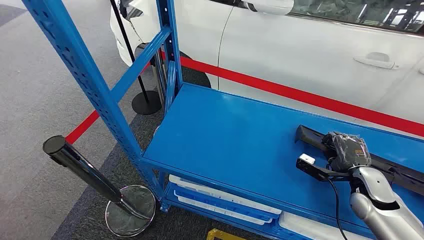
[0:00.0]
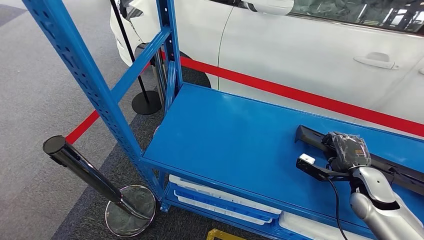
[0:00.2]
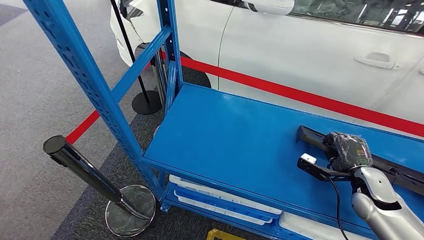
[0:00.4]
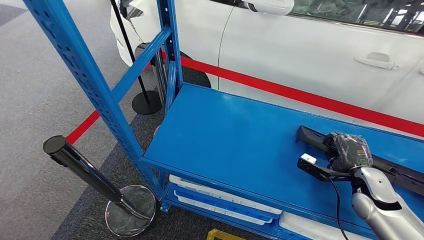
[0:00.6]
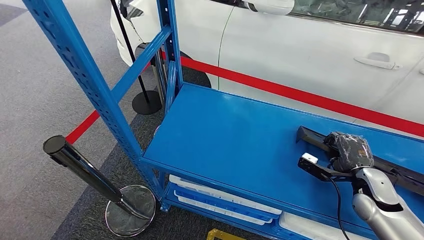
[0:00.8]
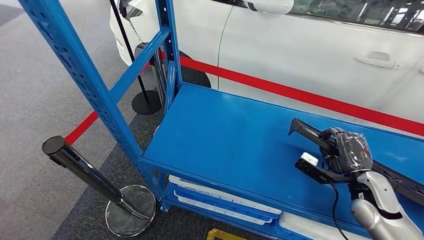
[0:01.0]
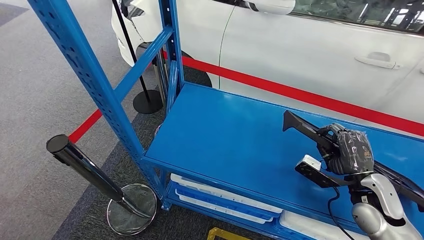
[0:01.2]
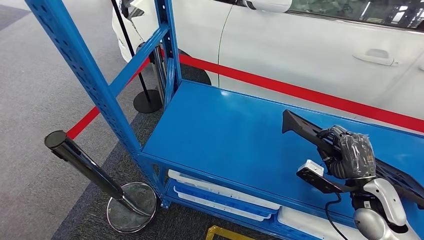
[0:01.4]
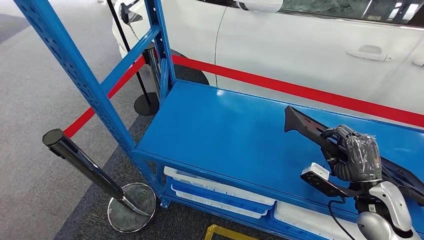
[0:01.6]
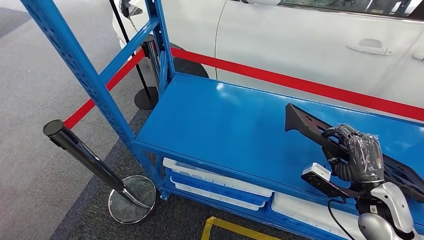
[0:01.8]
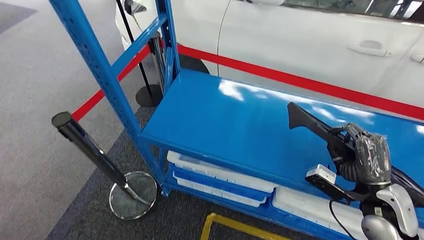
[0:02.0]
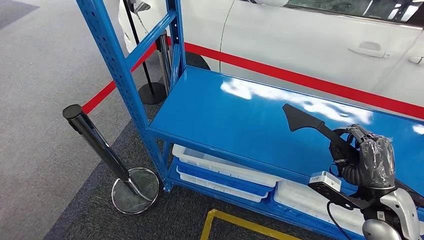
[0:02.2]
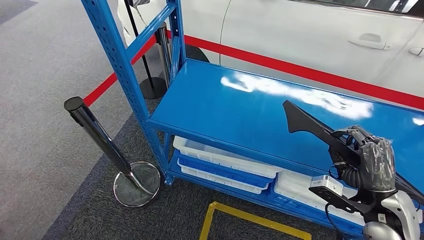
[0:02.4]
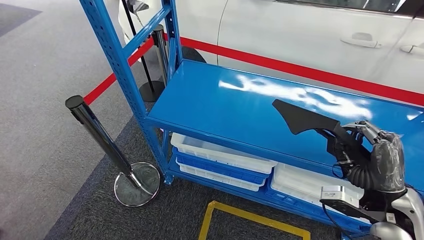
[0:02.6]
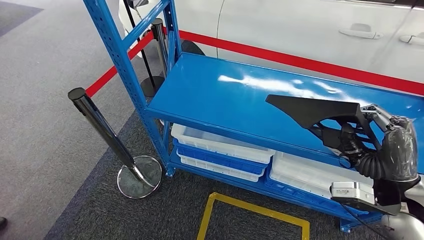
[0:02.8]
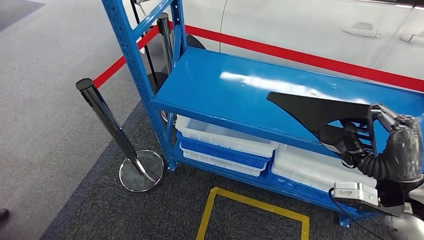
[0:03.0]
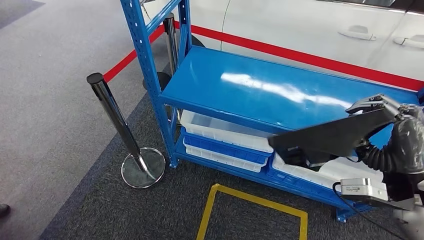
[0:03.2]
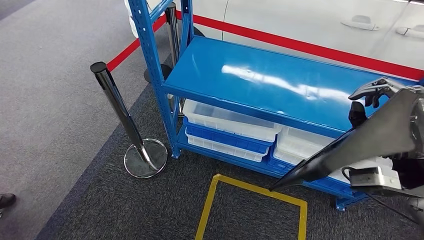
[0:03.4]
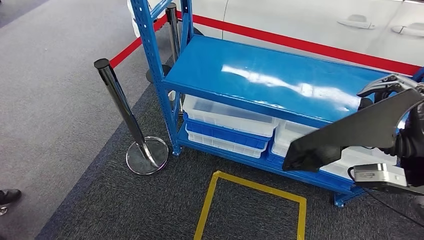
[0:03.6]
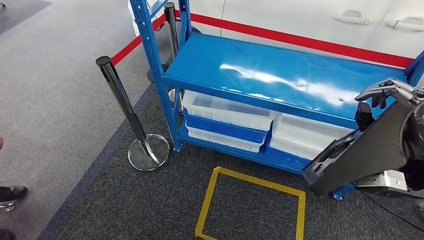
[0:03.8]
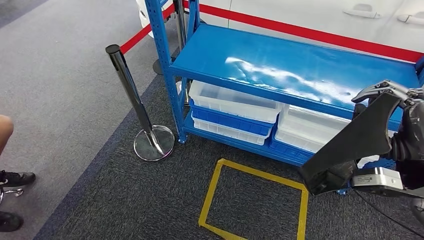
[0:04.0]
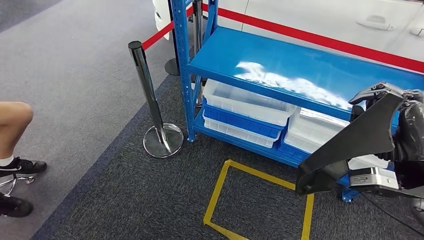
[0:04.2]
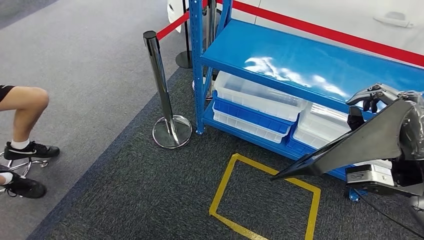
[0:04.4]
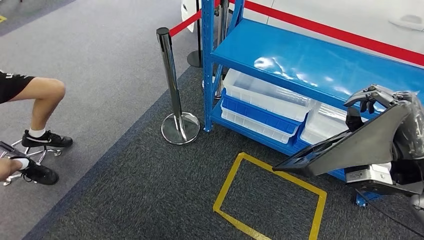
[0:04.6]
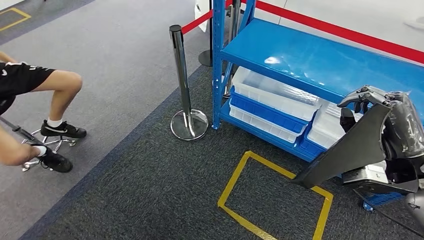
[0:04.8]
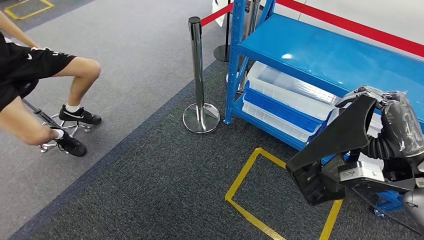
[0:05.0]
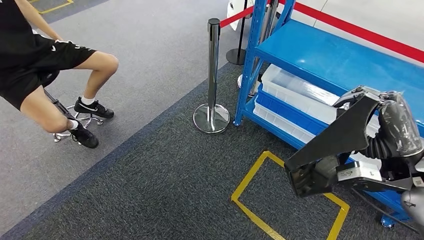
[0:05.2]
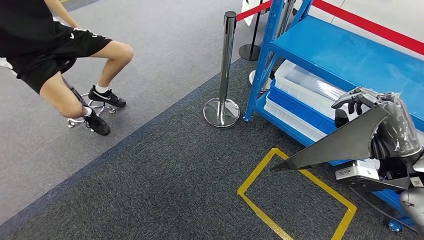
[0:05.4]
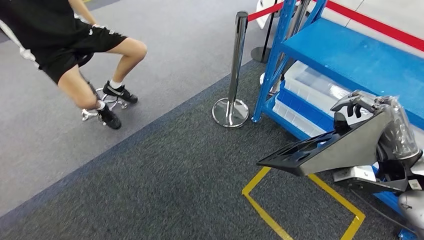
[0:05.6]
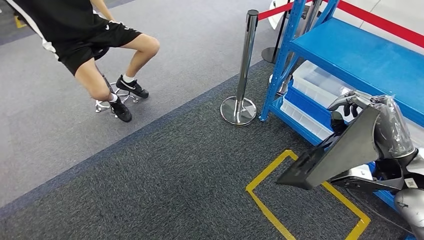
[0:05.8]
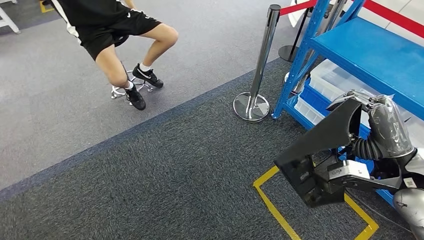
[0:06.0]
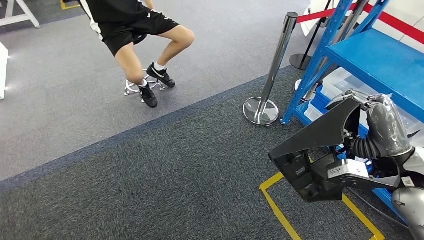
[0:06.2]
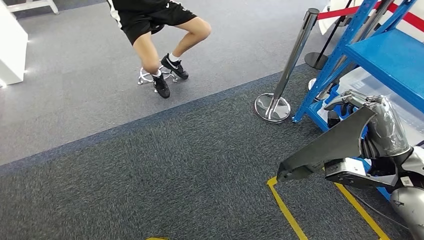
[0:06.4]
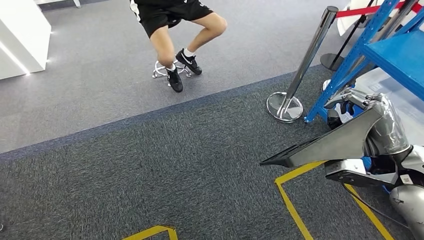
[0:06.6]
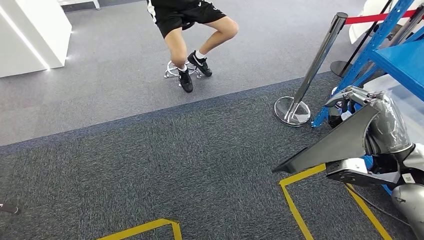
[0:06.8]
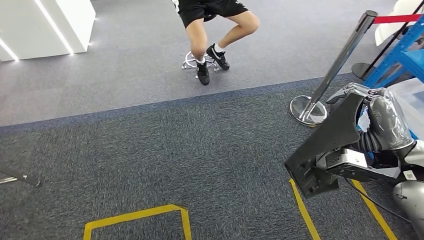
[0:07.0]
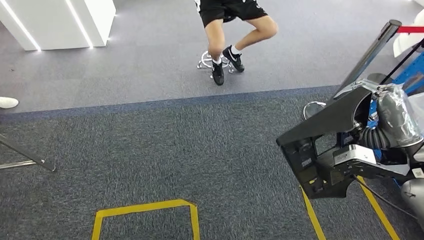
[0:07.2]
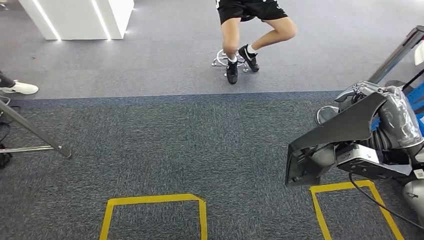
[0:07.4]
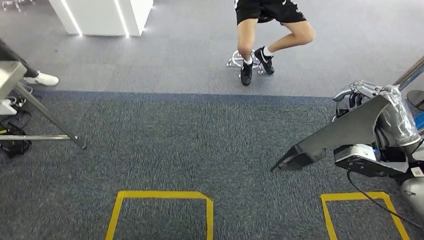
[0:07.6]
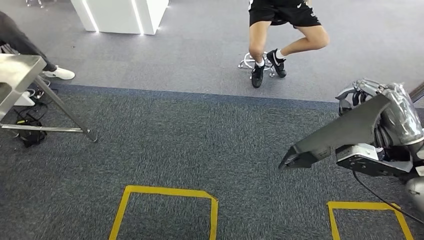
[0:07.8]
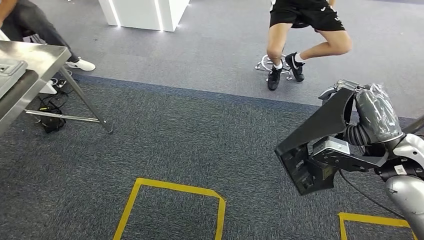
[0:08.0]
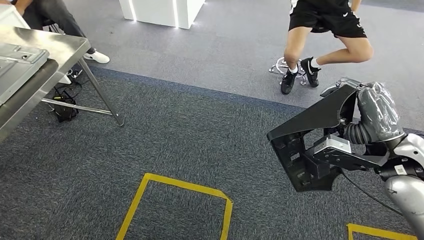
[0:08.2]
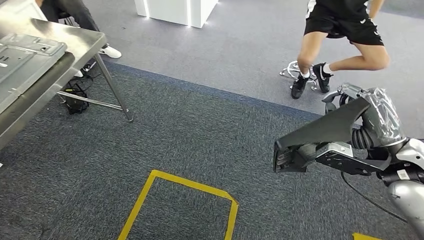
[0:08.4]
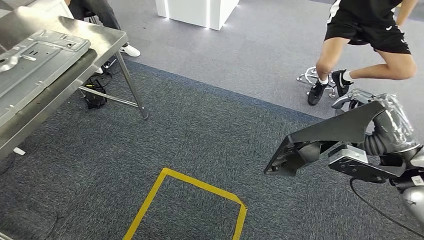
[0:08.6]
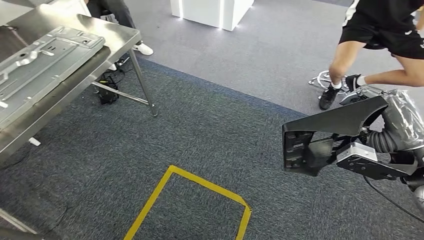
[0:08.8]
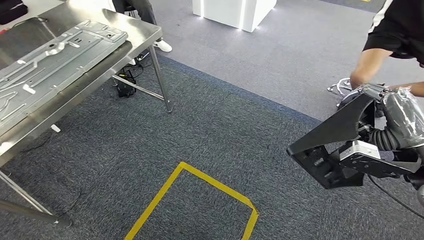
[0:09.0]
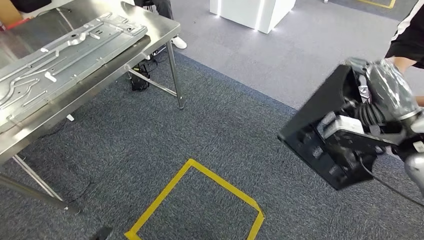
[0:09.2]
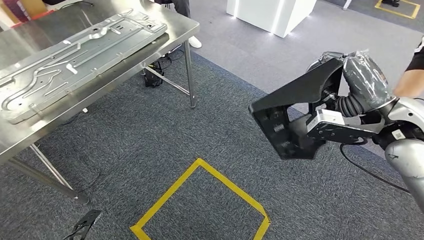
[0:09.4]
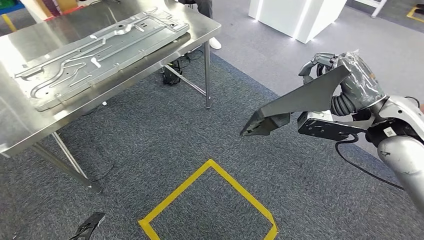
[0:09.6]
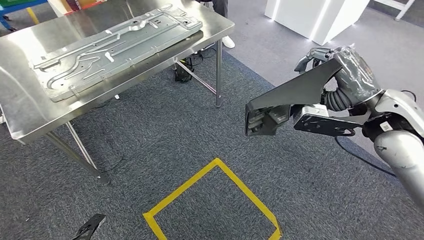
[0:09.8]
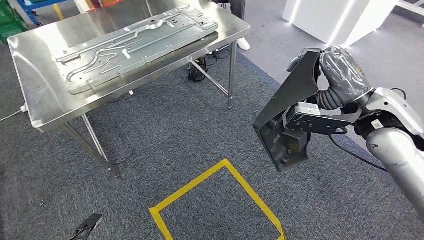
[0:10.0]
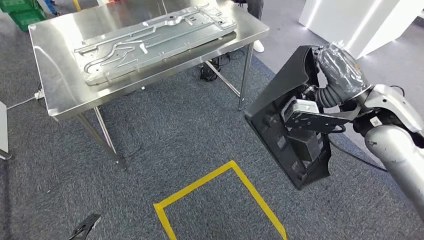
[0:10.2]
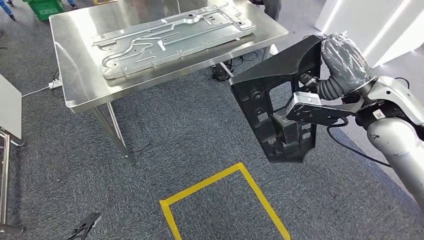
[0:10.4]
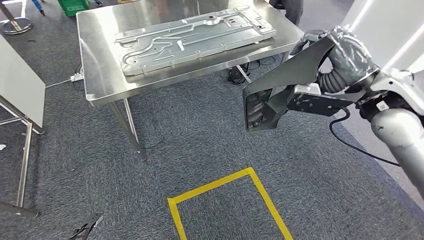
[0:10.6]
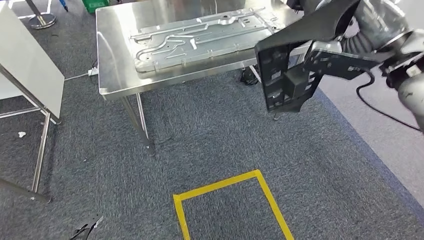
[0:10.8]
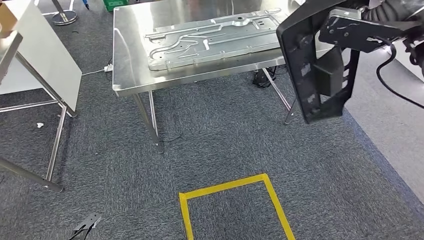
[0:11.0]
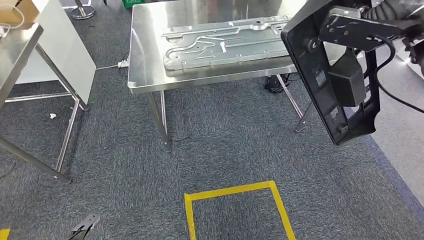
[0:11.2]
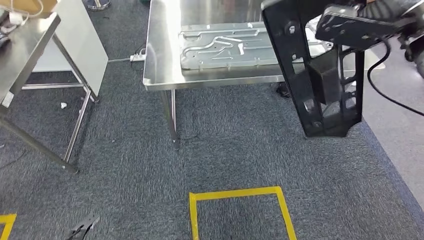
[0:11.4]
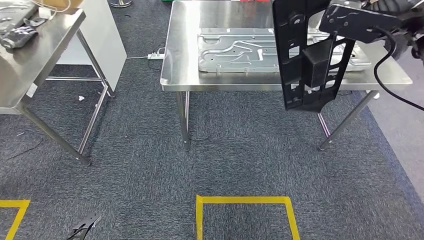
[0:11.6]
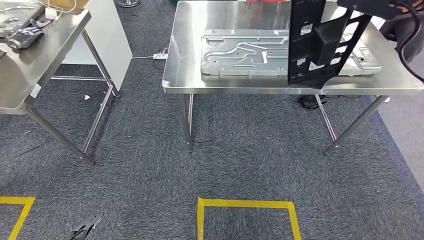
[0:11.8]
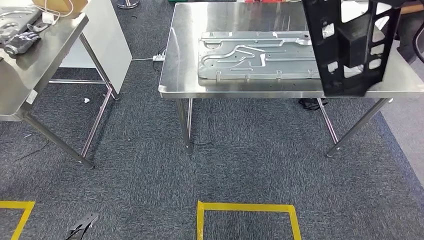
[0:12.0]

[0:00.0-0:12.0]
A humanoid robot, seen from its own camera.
Step, 0:00.0 to 0:03.0: Pick up the large material from the shelf.

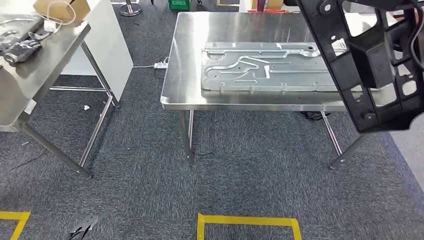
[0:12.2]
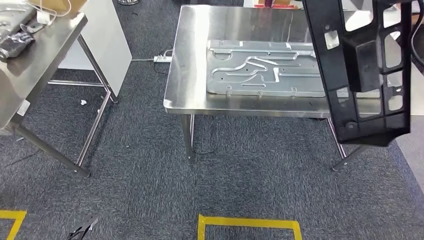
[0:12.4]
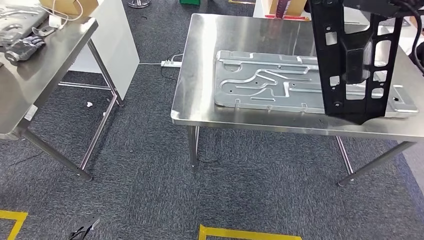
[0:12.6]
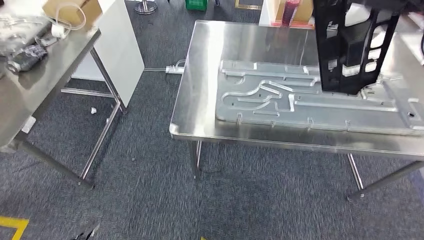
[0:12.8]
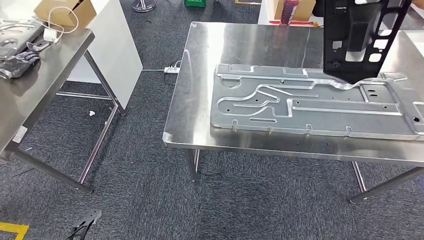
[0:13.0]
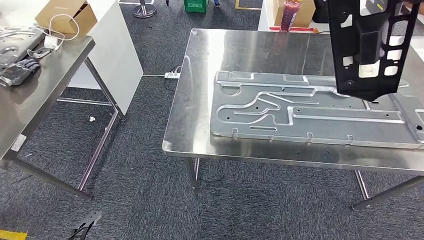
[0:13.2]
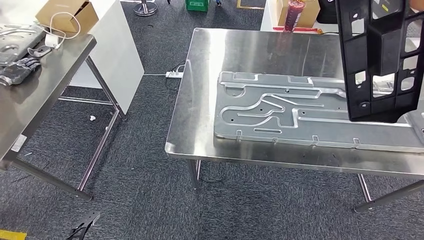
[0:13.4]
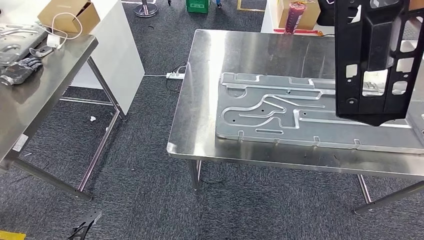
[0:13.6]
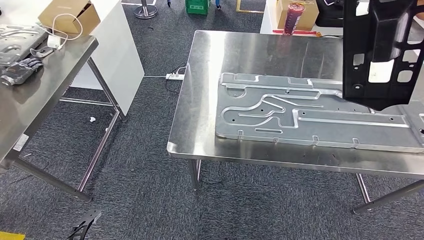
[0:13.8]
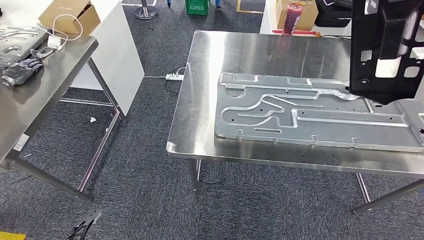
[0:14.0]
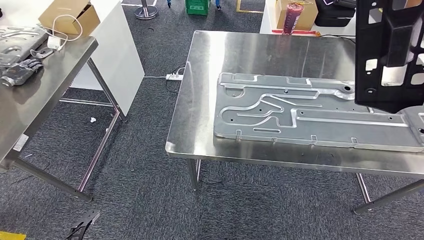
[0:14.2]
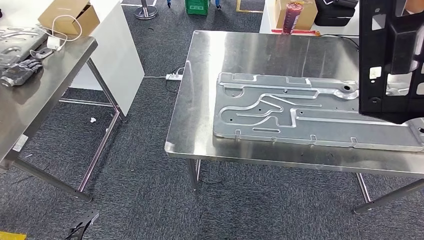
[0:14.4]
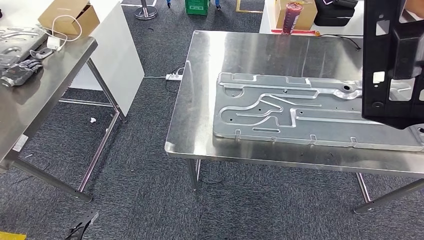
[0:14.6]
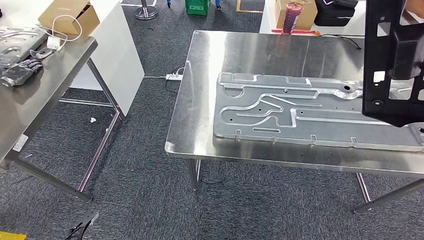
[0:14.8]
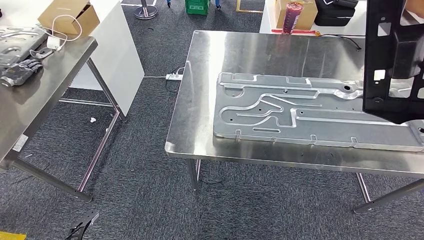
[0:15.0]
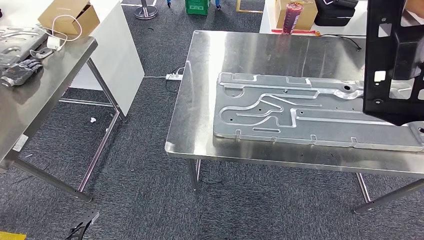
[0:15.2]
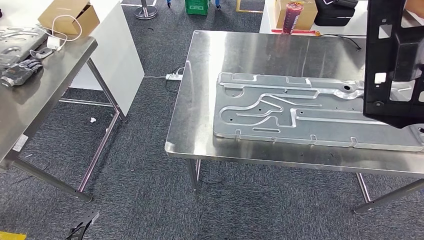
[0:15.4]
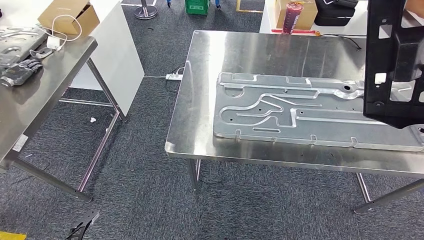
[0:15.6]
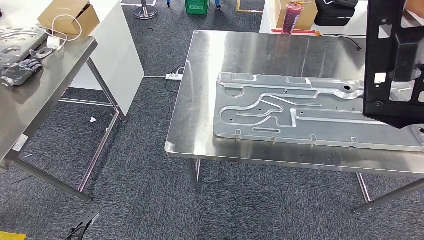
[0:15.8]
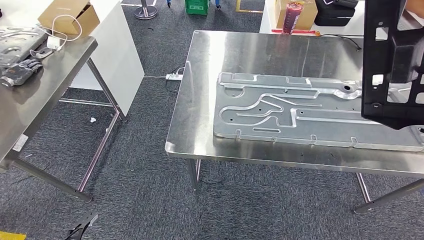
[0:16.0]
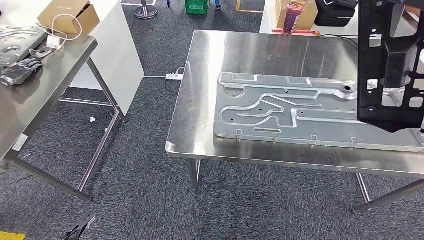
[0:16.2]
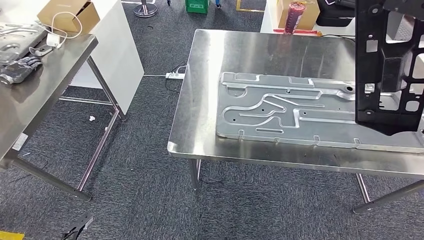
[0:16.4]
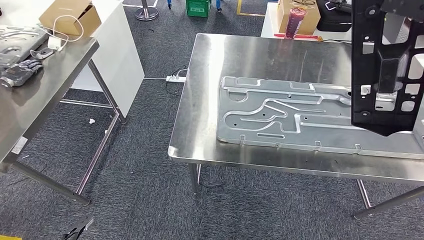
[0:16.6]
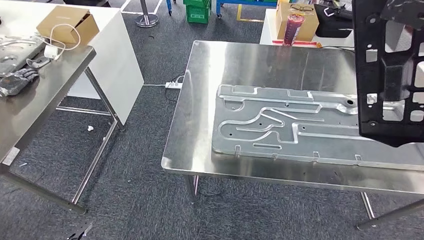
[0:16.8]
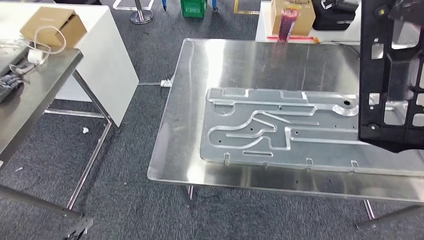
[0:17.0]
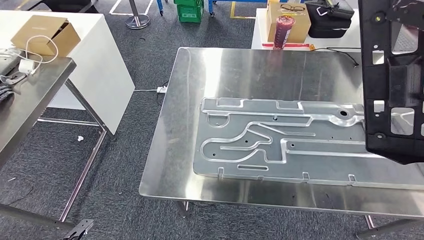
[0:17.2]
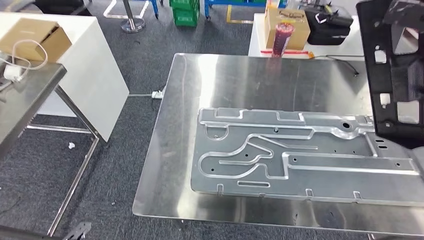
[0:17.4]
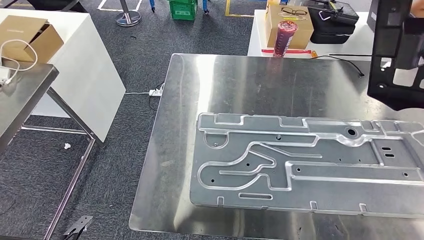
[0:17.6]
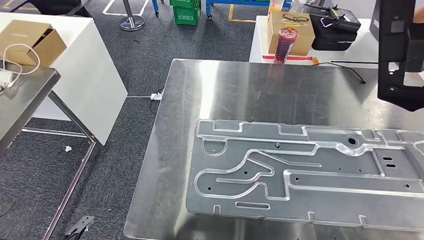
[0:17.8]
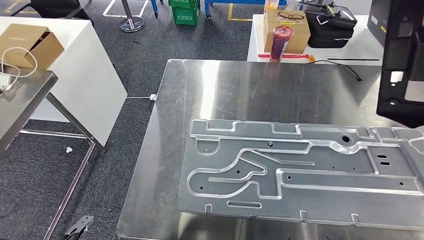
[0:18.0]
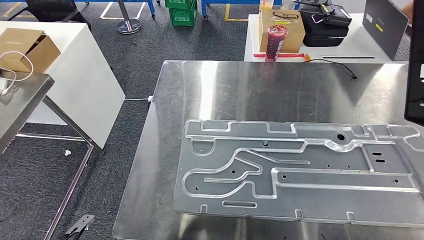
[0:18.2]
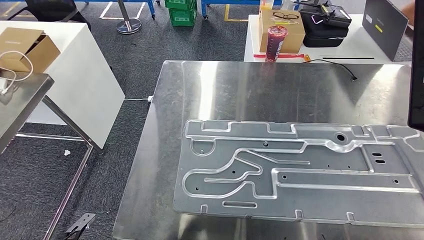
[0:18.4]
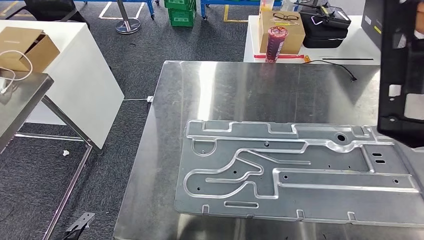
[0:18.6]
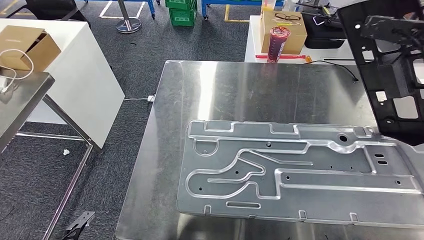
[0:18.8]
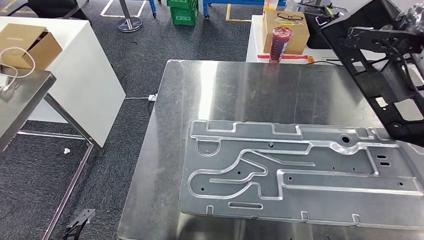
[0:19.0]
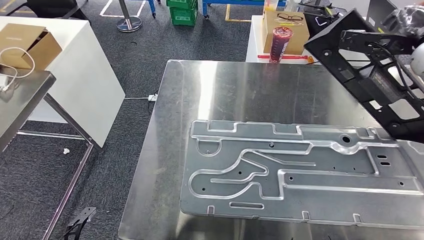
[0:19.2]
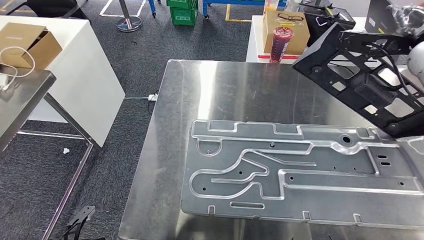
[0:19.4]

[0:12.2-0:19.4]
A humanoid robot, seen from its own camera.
Step, 0:12.2 to 0:16.6: Move the large material to the workbench.
0:13.6 to 0:15.0: The right hand shifts by approximately 5 cm.
